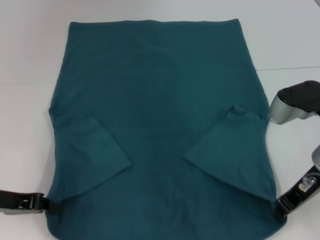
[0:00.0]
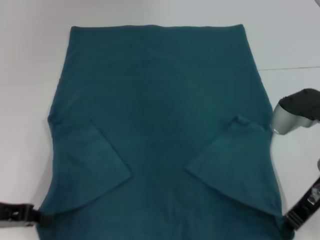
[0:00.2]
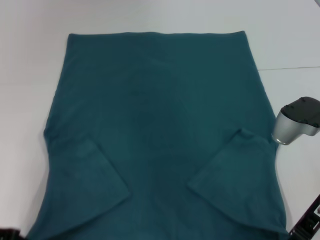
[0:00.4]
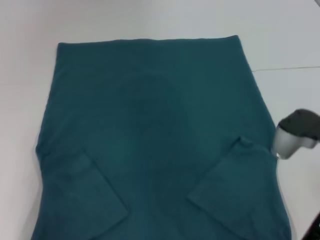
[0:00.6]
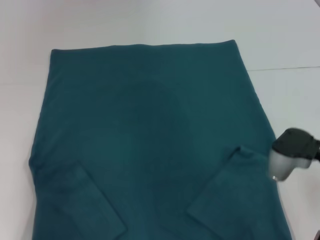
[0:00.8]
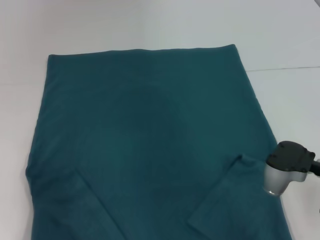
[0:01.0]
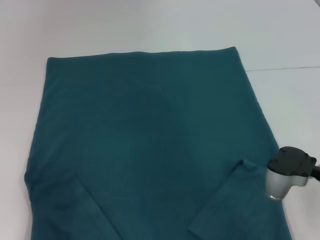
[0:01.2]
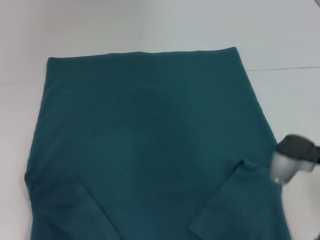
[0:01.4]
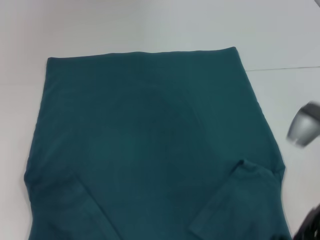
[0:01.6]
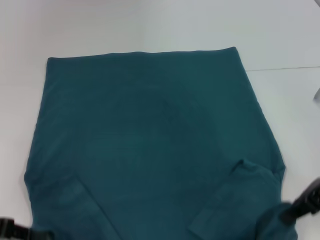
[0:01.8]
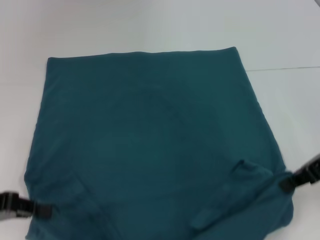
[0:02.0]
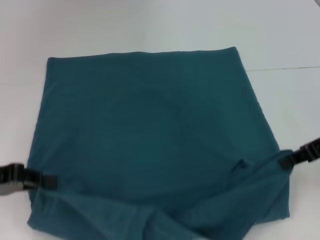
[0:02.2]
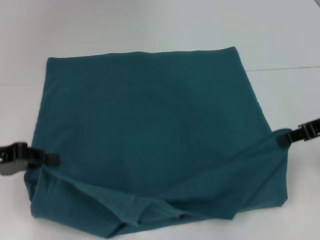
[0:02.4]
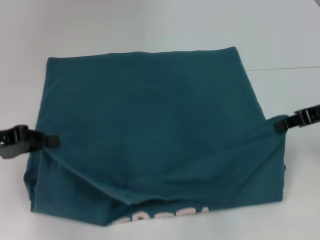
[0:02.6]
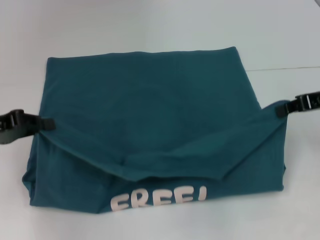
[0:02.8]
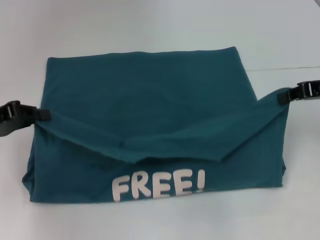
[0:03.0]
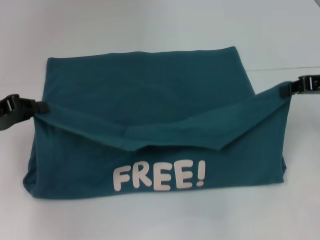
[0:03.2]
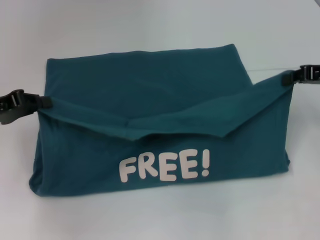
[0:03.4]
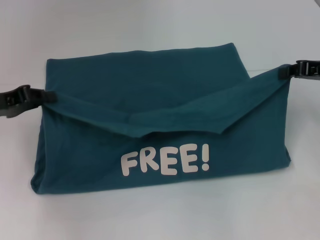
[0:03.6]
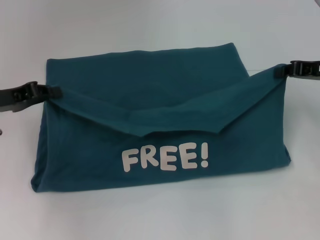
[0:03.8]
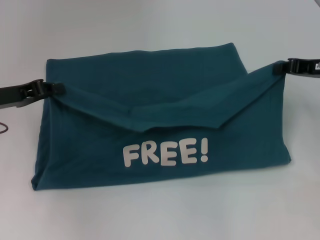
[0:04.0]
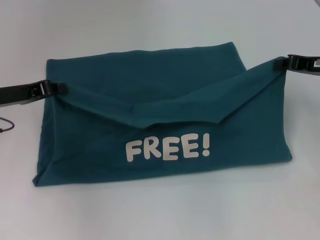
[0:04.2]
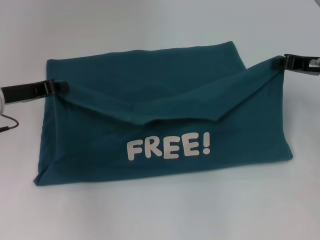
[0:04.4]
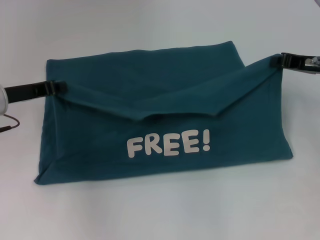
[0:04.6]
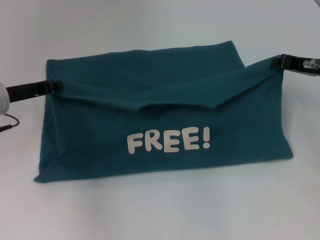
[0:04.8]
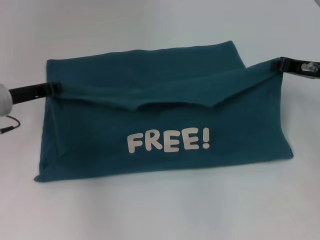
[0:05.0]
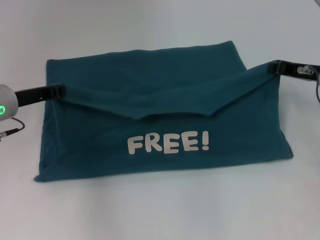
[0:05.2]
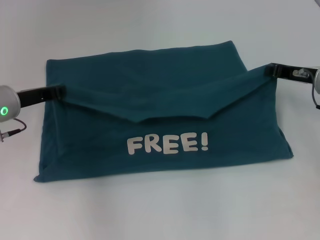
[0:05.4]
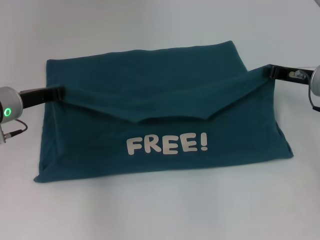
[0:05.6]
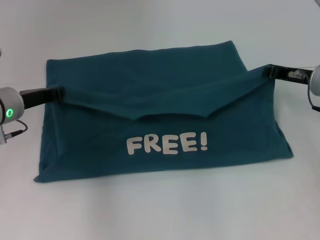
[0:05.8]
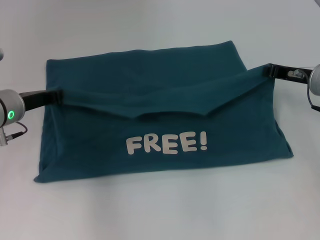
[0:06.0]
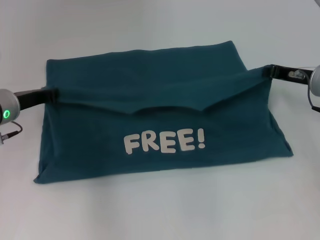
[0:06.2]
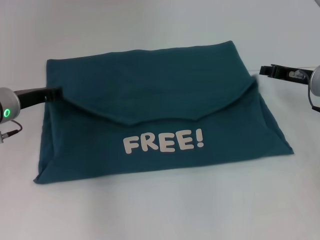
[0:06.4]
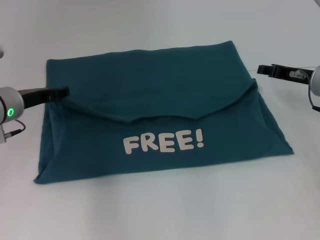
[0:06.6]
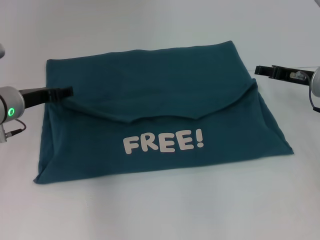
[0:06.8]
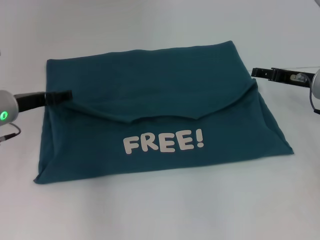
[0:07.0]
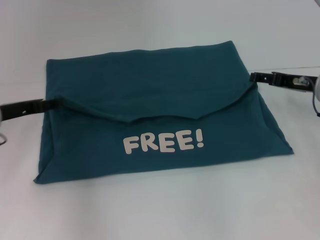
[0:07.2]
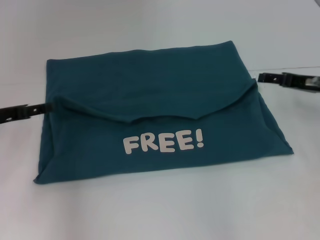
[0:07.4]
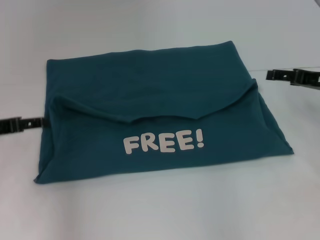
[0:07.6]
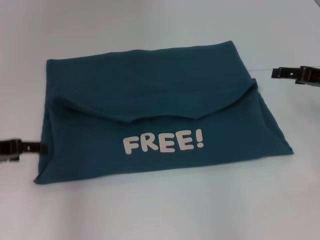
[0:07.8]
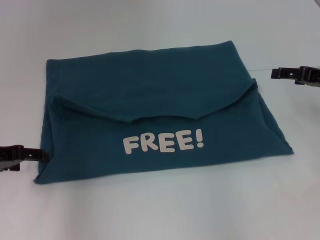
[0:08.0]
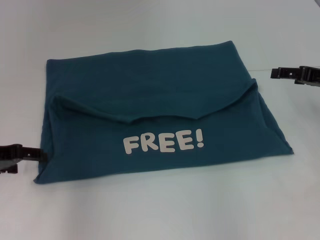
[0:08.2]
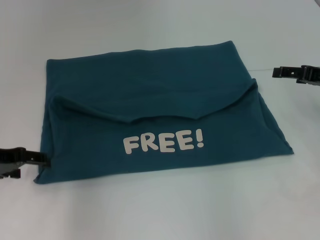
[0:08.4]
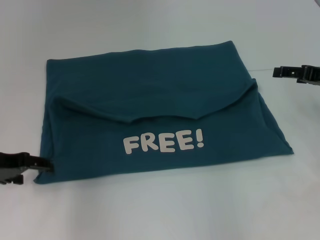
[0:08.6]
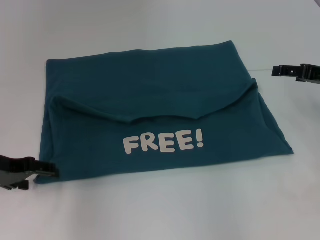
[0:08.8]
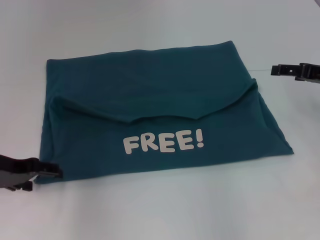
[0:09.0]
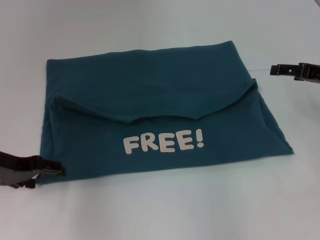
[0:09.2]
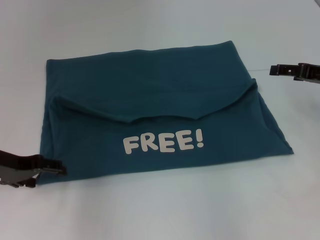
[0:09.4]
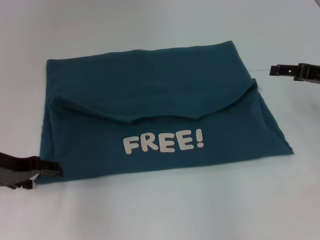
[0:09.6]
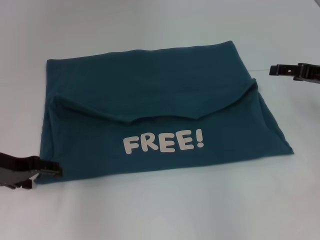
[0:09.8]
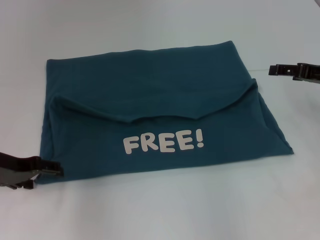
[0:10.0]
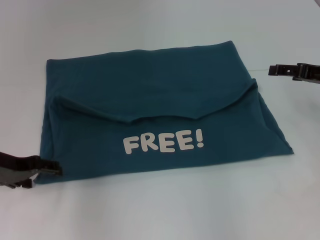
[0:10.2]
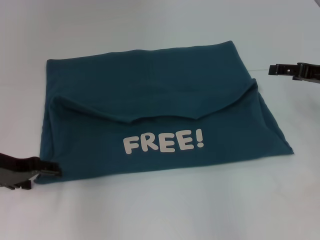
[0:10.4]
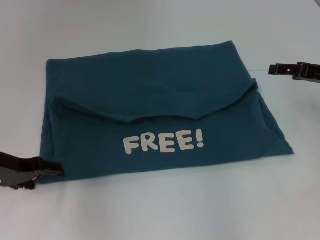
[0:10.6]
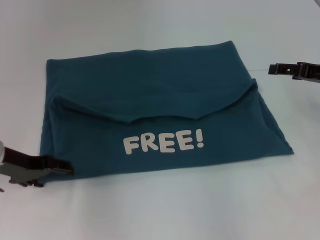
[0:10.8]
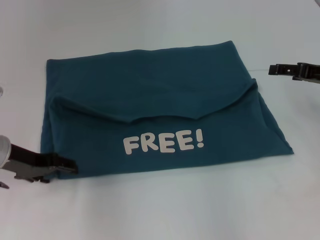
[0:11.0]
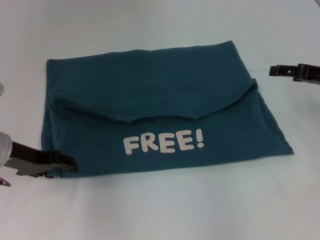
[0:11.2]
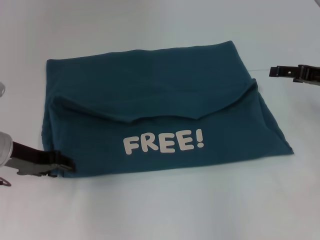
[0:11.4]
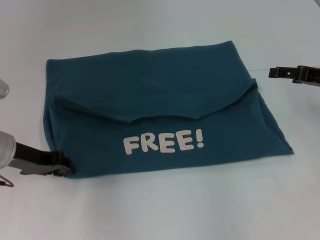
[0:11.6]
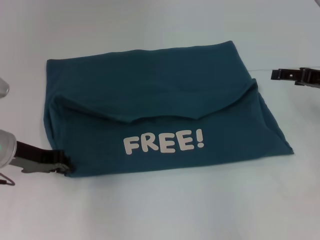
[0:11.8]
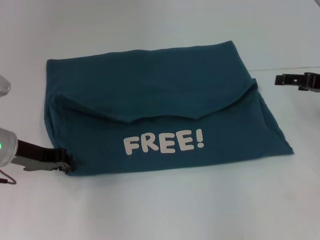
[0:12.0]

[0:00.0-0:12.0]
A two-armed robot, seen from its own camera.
Step, 0:00.0 to 0:07.4: Fold the clothes to the left.
Step, 0:00.0 to 0:07.4: Fold the clothes to the right.
0:00.0 to 0:01.6: The left gripper is displaced backward by approximately 5 cm.
0:01.6 to 0:03.0: The right gripper travels to the right, forward and upward by some 10 cm, while the left gripper goes roughly 10 cm forward.
0:03.0 to 0:04.4: The right gripper ends up about 5 cm from where it was. Meanwhile the left gripper travels forward by about 5 cm.
0:04.4 to 0:06.0: The grippers move only a little.
0:06.0 to 0:07.6: The right gripper ends up roughly 5 cm from where it was, and opens up; the left gripper travels to the left and backward by approximately 10 cm, and opens its fingers.
0:09.0 to 0:10.4: Both grippers stay about where they are.
0:10.4 to 0:12.0: The left gripper closes up.

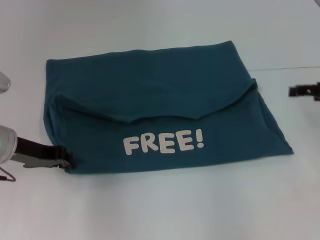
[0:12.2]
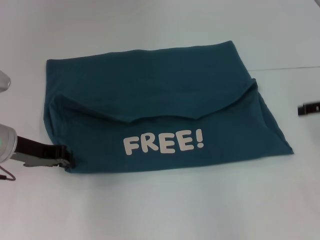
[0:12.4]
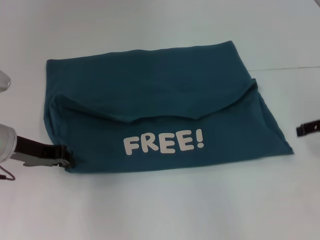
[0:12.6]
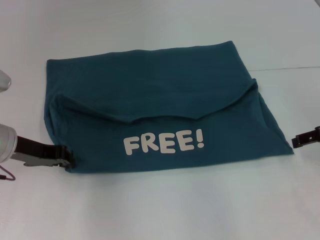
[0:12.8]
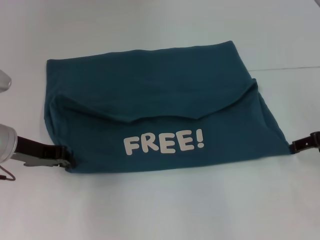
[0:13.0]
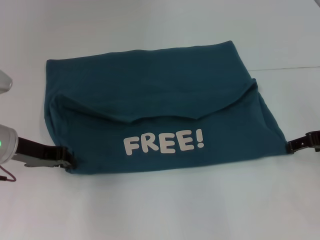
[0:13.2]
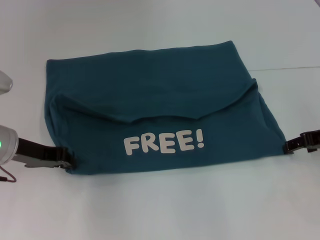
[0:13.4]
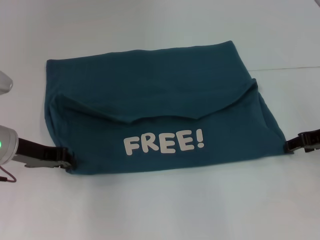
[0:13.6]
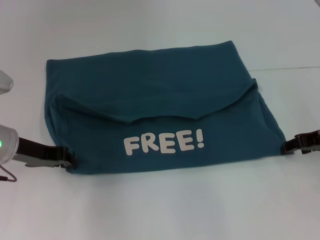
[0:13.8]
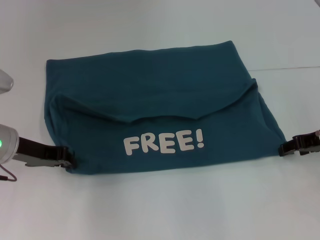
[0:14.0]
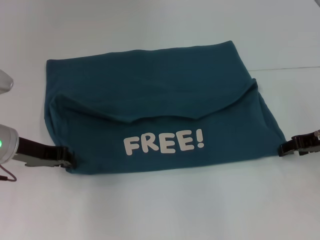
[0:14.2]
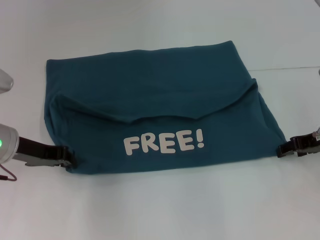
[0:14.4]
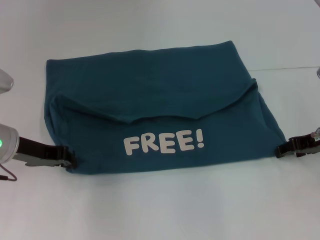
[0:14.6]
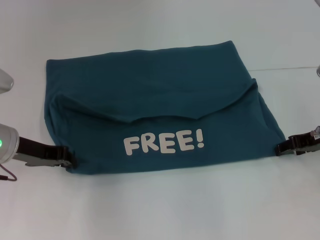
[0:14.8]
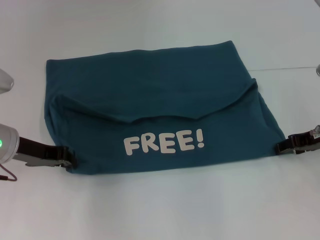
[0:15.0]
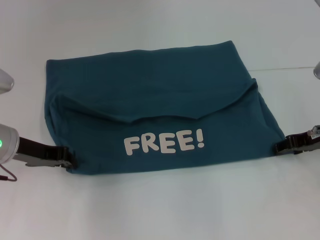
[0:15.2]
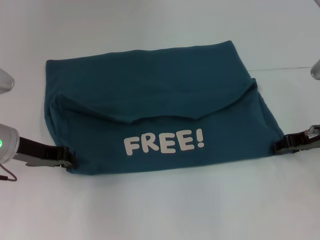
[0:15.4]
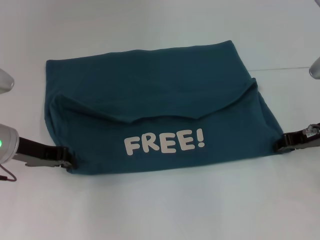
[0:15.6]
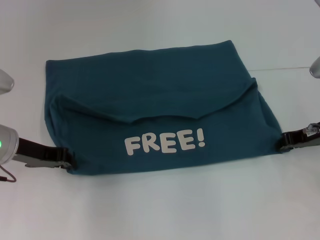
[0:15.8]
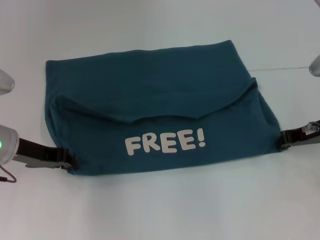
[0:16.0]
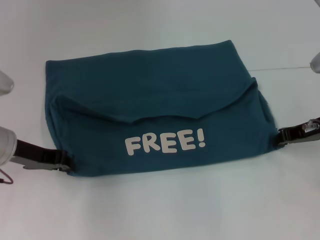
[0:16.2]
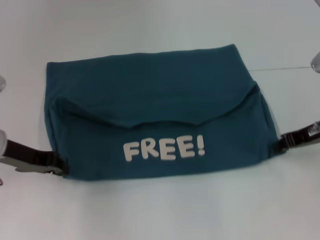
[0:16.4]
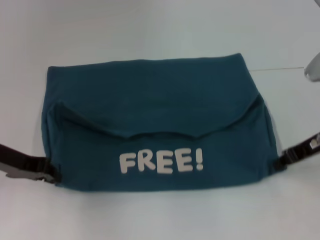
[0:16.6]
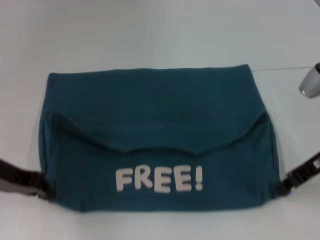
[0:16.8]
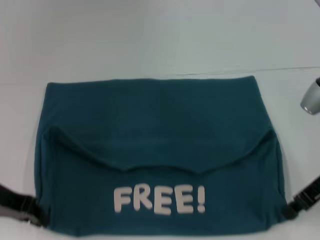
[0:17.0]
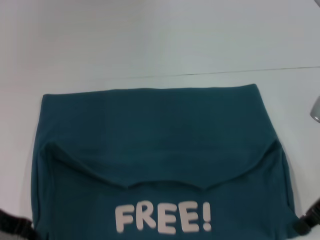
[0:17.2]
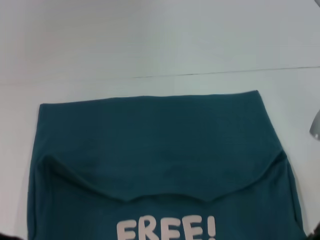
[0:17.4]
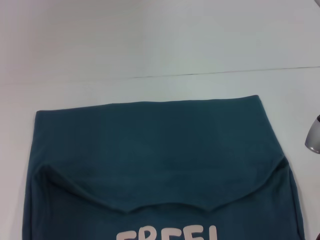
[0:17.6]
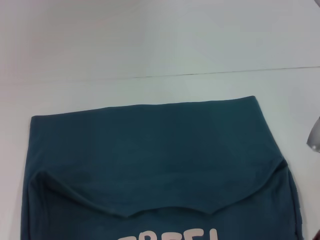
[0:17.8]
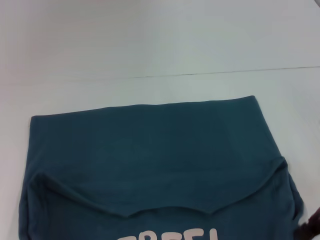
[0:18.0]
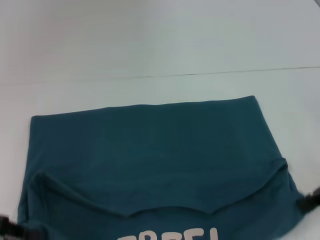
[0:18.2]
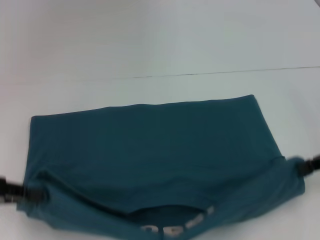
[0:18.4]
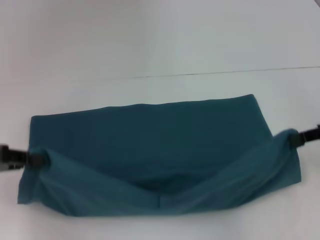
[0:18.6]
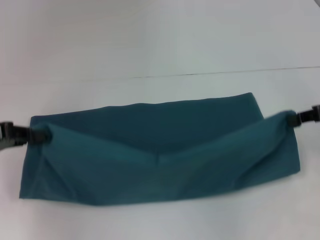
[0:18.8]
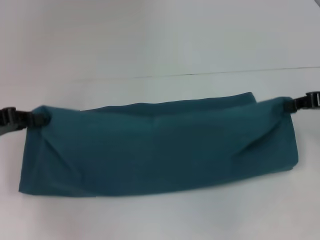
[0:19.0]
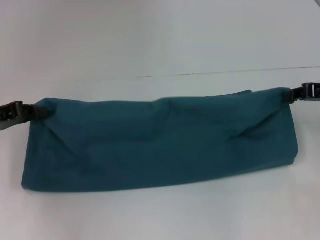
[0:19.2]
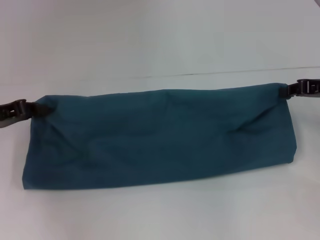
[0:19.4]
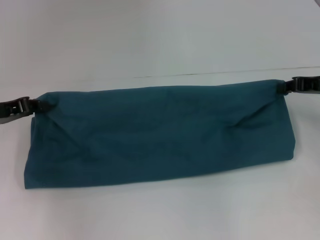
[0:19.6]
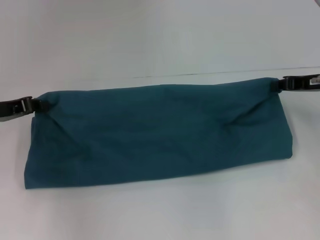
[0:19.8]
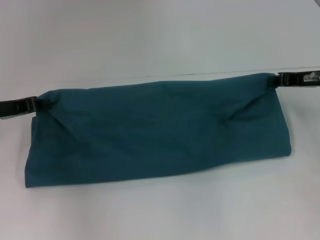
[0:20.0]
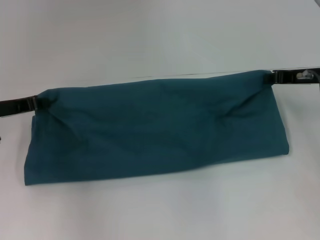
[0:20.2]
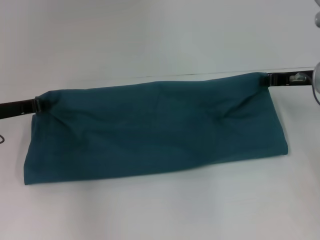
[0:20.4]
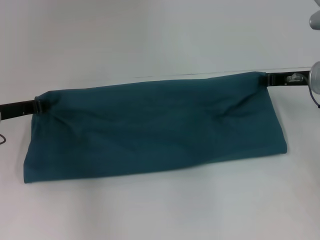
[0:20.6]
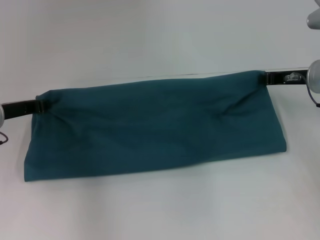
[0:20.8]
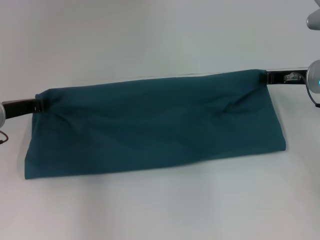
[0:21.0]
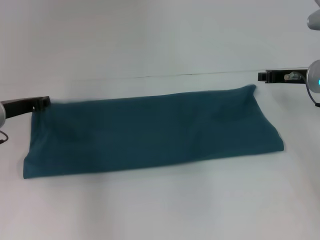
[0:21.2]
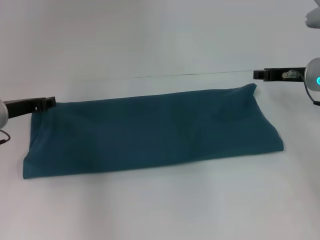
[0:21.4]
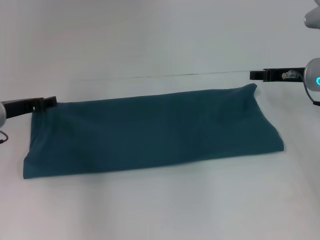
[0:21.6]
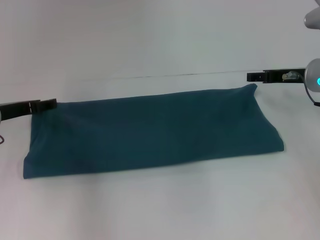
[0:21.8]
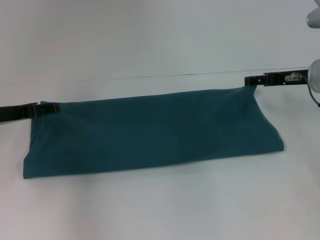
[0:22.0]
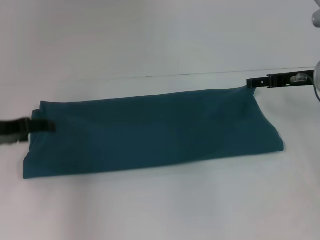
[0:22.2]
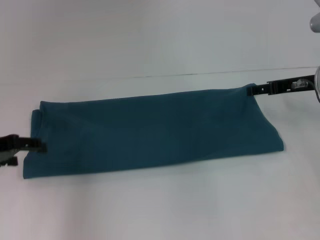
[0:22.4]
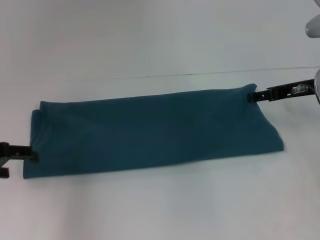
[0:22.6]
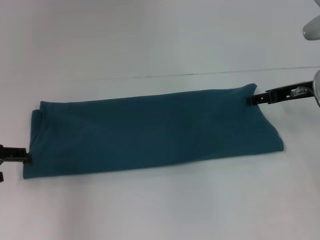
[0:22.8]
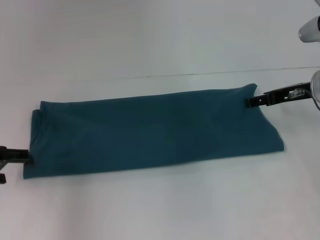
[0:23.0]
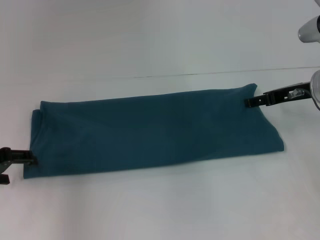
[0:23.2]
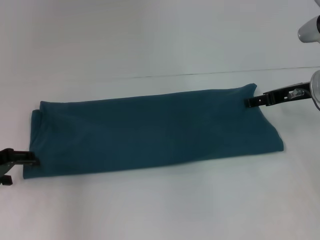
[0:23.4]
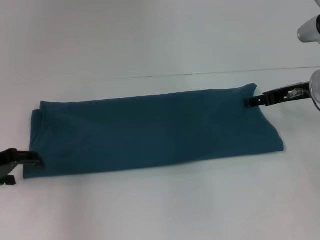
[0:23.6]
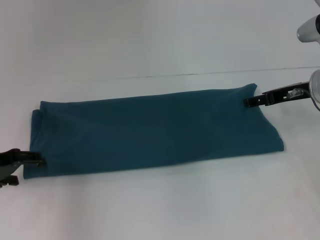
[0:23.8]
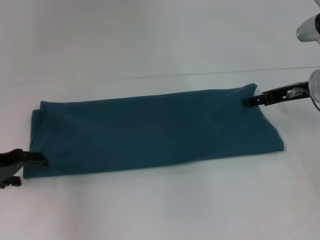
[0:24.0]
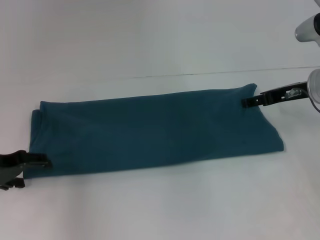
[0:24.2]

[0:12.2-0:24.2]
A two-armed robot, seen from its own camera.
Step, 0:12.2 to 0:17.0: Pull the clothes with your left hand.
Step, 0:12.2 to 0:17.0: Pull the clothes with your right hand.
Step, 0:17.2 to 0:21.4: Fold the clothes to the left.
Step, 0:17.2 to 0:21.4: Fold the clothes to the right.
0:12.2 to 0:13.8: The right gripper shifts by about 5 cm.
0:15.2 to 0:16.6: The right gripper closes up.
0:16.6 to 0:18.2: The right gripper goes some 5 cm backward. Meanwhile the left gripper is displaced backward and to the left by about 10 cm.
0:18.2 to 0:19.8: The grippers both shift forward by about 10 cm.
0:19.8 to 0:21.2: The left gripper shifts by some 5 cm.
0:21.2 to 0:22.6: The left gripper goes approximately 10 cm backward and to the left, and opens. Meanwhile the right gripper opens.
0:22.6 to 0:24.2: There are only small adjustments of the grippers.
